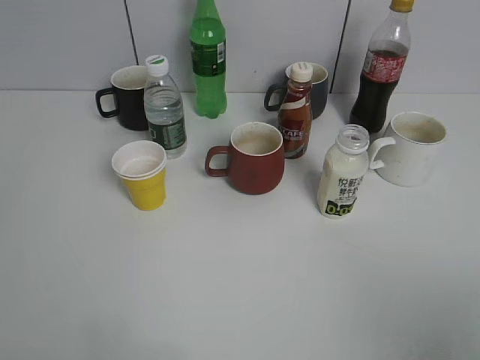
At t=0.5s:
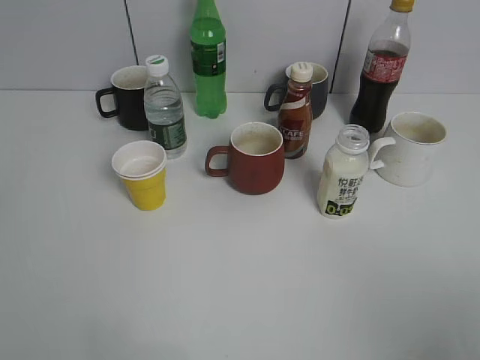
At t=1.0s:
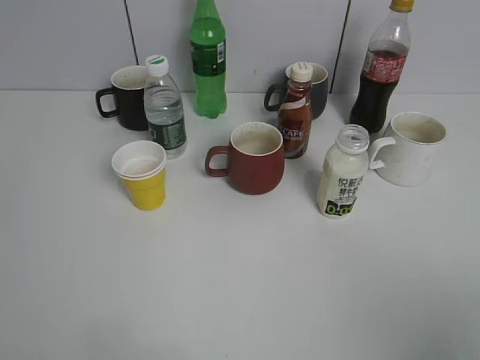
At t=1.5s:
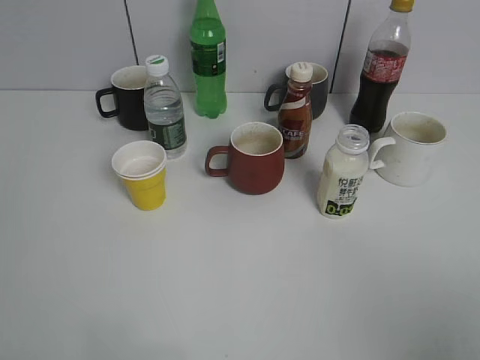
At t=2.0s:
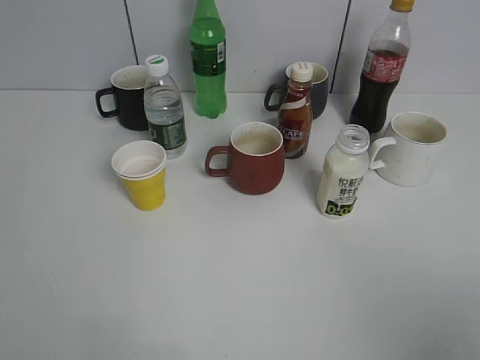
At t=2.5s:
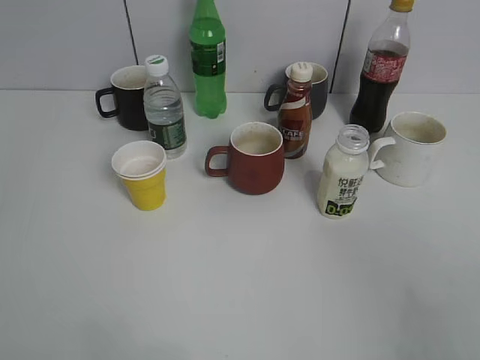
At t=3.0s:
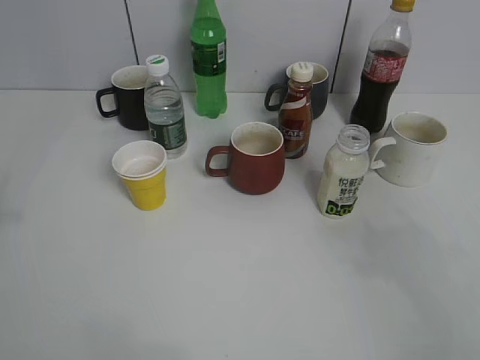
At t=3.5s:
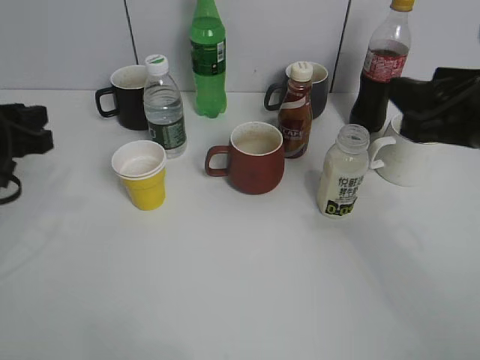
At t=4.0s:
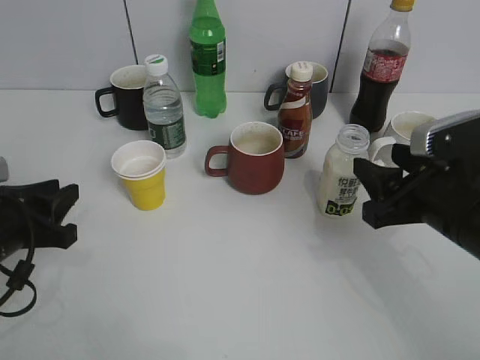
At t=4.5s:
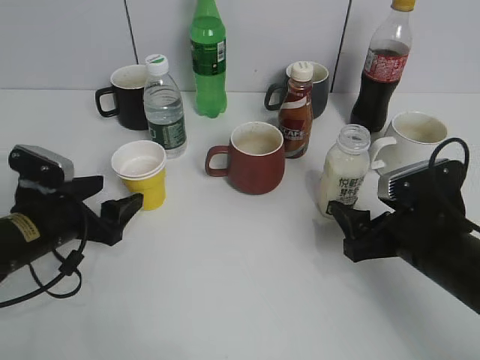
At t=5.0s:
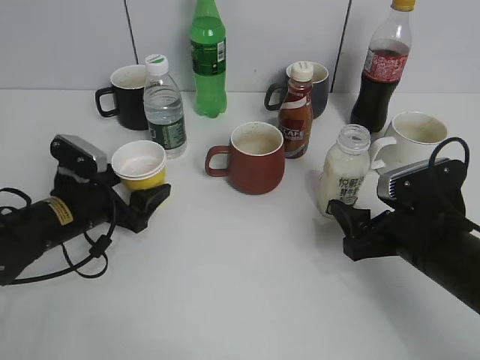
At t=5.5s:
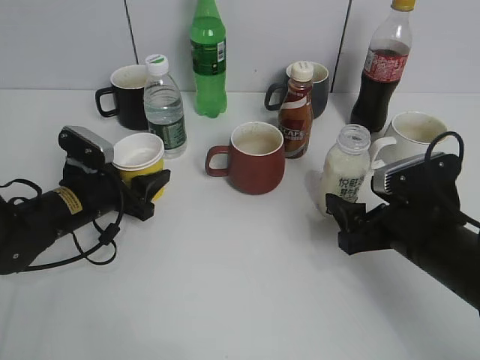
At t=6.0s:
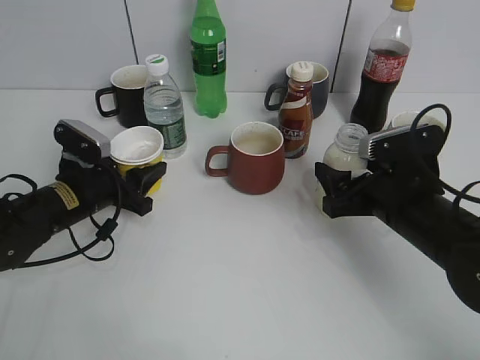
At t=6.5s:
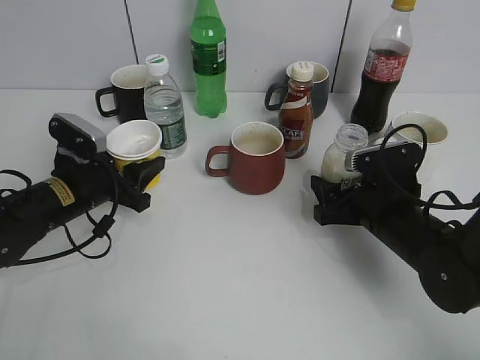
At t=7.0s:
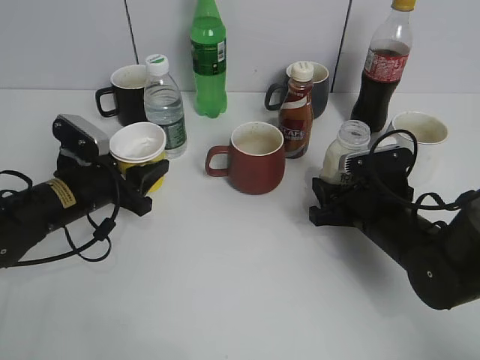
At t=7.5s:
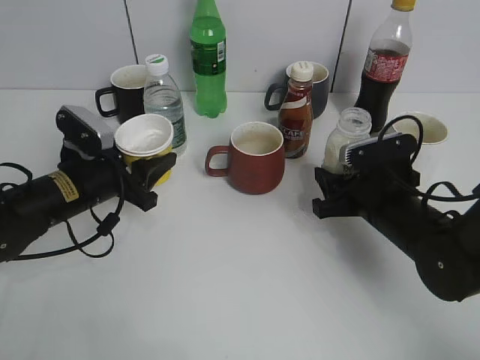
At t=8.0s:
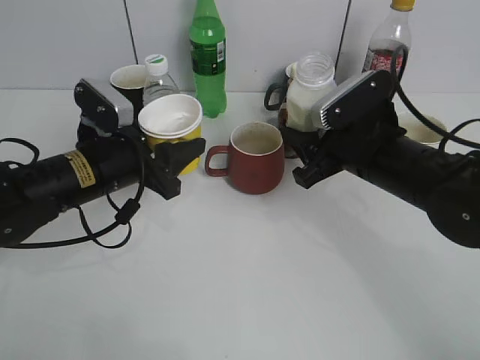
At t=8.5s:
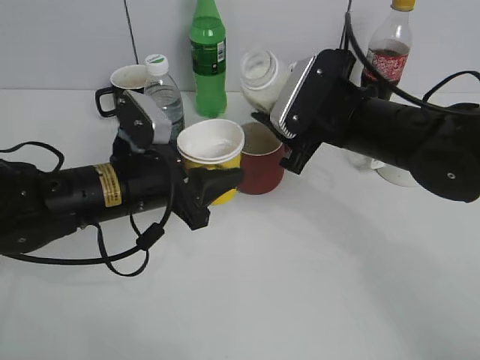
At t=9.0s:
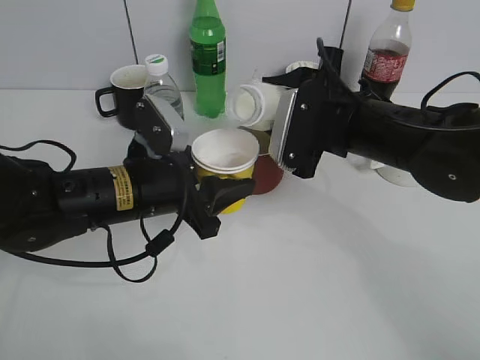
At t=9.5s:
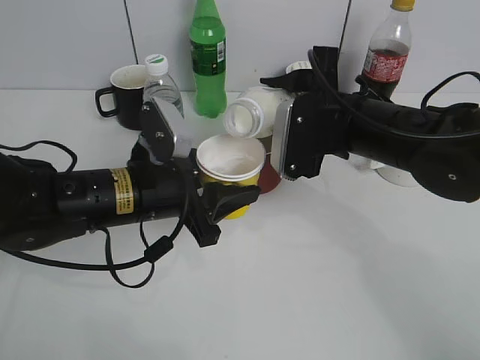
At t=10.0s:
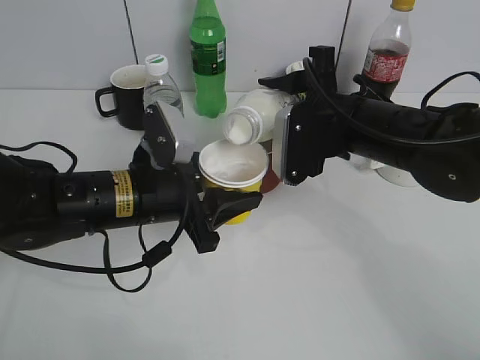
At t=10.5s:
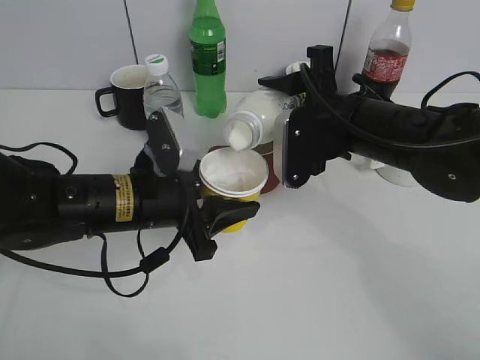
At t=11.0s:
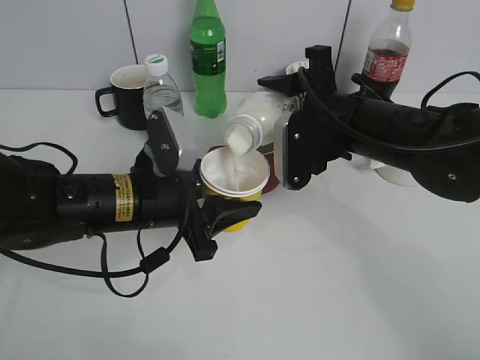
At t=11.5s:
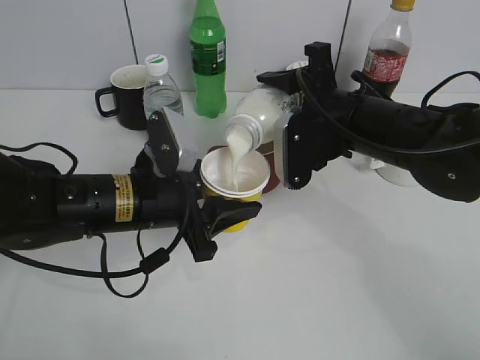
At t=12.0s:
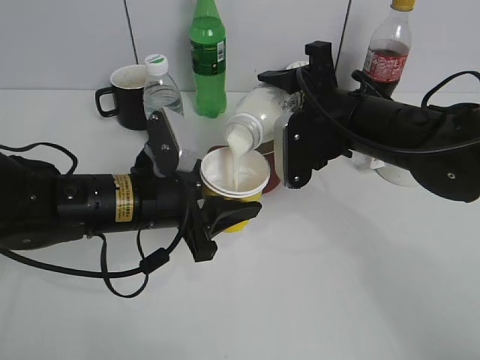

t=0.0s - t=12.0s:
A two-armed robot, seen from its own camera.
Step, t=3.5s - t=5.0s: Grasp the yellow paper cup with left gripper.
Step, t=5.5s - t=6.0s: Lift the yellow paper cup with left gripper.
Step, t=6.5s - t=7.0s: Grasp the bottle with yuexian Milk with right gripper.
t=2.0s - t=4.0s: Both grippers travel together forward and downward, about 25 cm.
t=4.0s - t=6.0s: The left gripper heads forward, downward and to the right, covering about 15 cm, and opens and closes again; the right gripper goes roughly 5 cm downward, and opens its fingers.
t=6.0s - t=8.0s: The left gripper is displaced upward by approximately 5 cm; the right gripper shifts by some 5 cm, and closes.
t=8.0s - t=10.0s: The left gripper is displaced to the right by approximately 5 cm.
t=10.0s - t=12.0s: The grippers move only a little.

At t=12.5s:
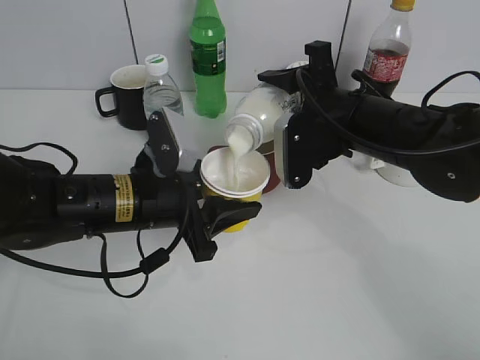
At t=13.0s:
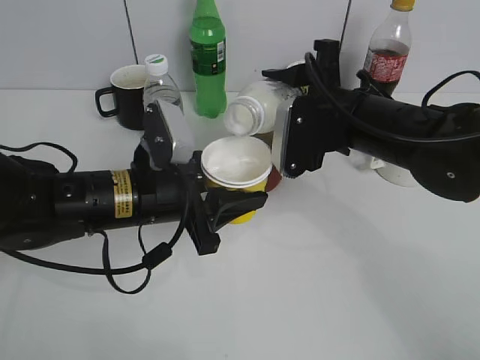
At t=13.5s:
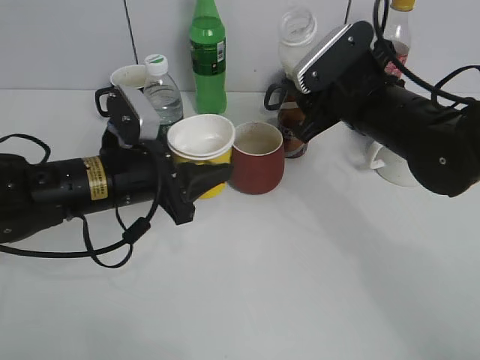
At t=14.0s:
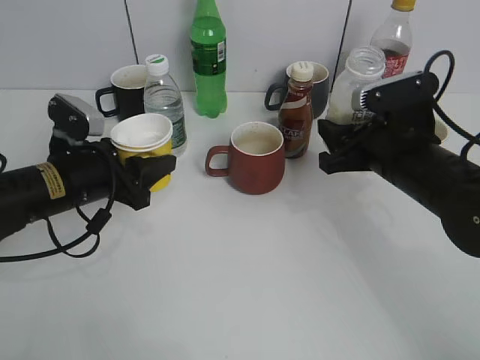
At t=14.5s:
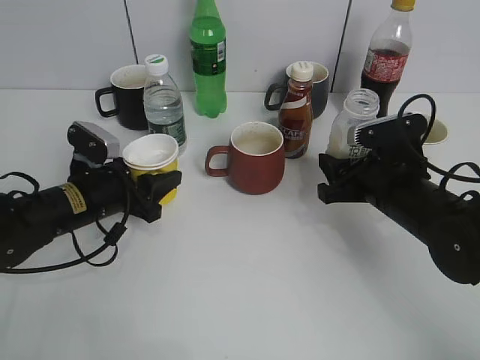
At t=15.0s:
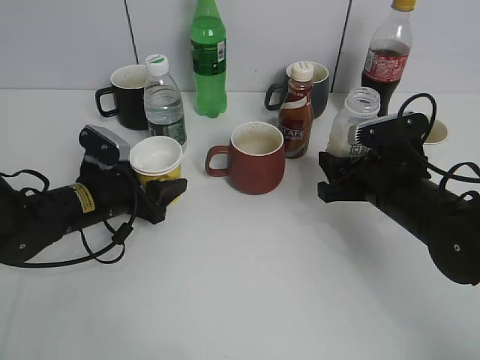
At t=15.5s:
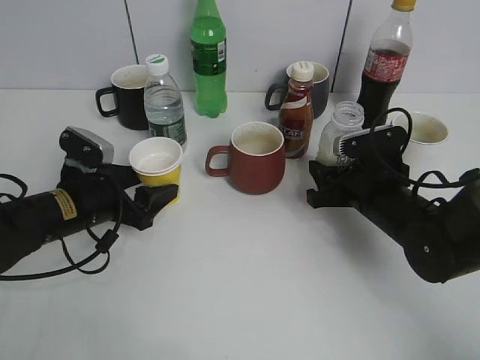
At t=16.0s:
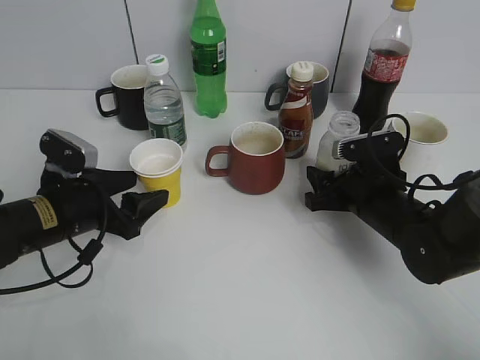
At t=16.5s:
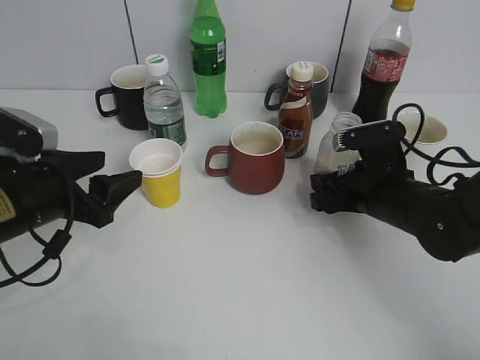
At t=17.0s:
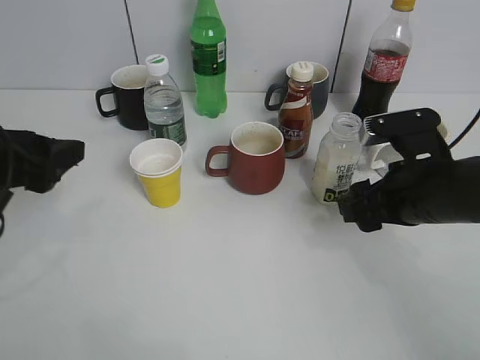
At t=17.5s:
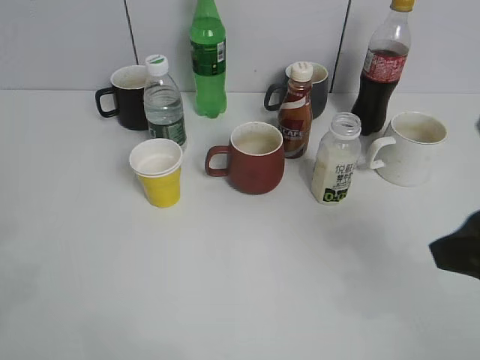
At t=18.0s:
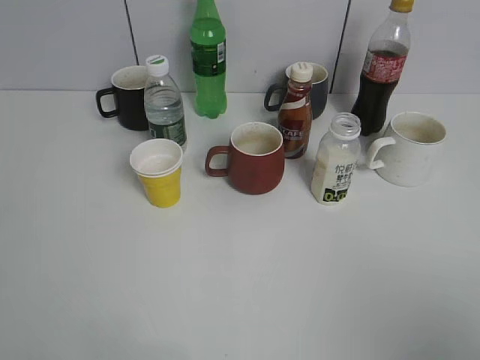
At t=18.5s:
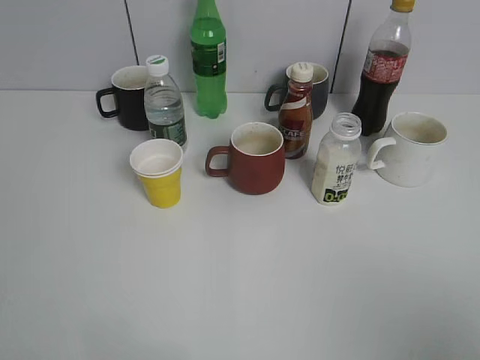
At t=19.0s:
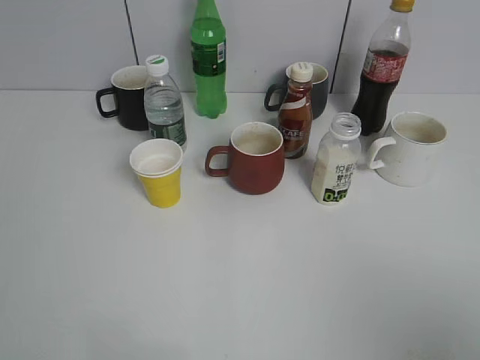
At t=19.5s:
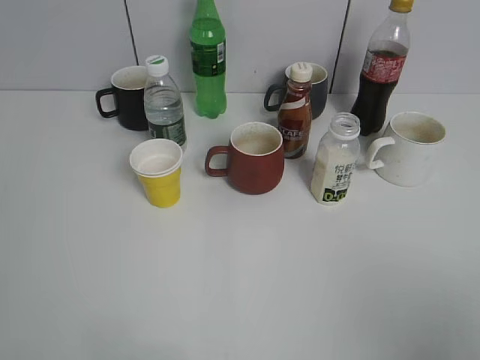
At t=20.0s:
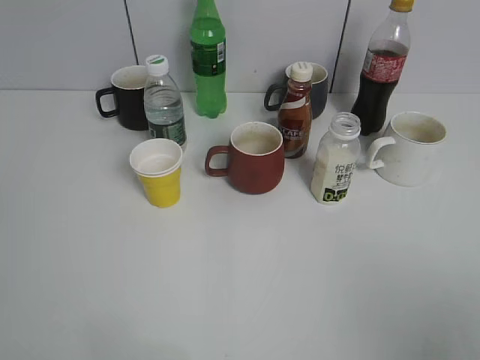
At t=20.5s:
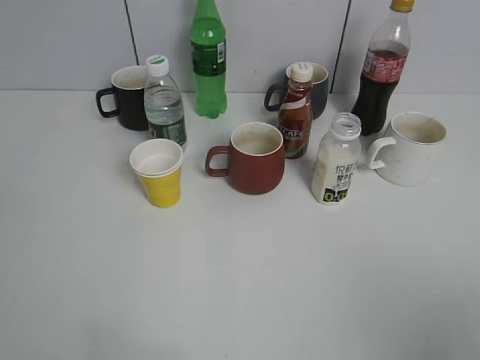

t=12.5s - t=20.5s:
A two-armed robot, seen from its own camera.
Step, t=13.5s - t=16.5s: Place the yuexian Milk bottle on the table with right gripper.
t=12.5s - t=14.5s: The right gripper is displaced downward and to the right by about 10 cm, while the left gripper heads to the left, downward and forward, covering roughly 10 cm.
t=14.5s - t=16.5s: The right gripper opens up. The left gripper goes about 10 cm backward and upward, and opens.
t=16.5s - t=18.5s: The left gripper heads backward, upward and to the left, covering some 30 cm; the right gripper travels backward and upward by roughly 35 cm.

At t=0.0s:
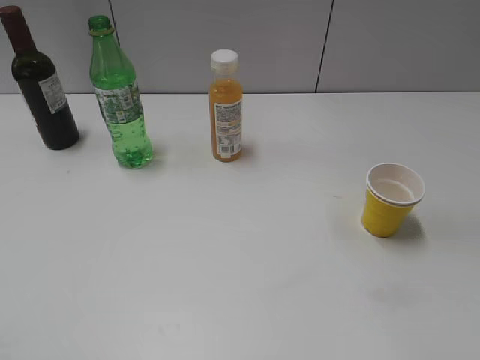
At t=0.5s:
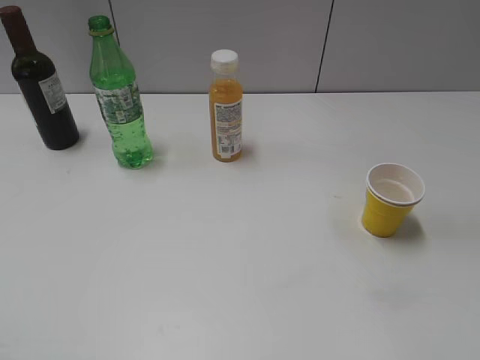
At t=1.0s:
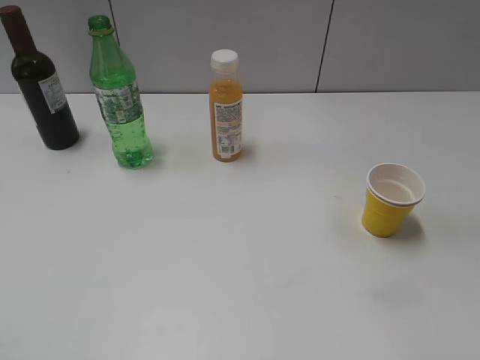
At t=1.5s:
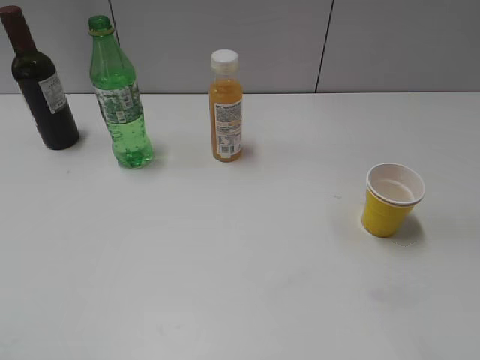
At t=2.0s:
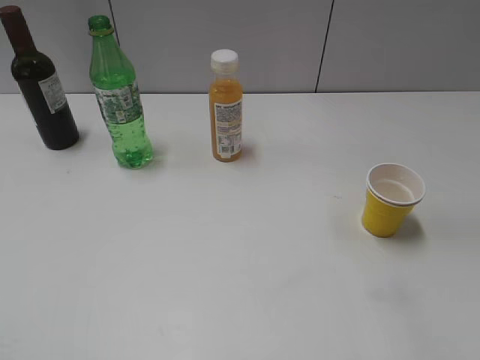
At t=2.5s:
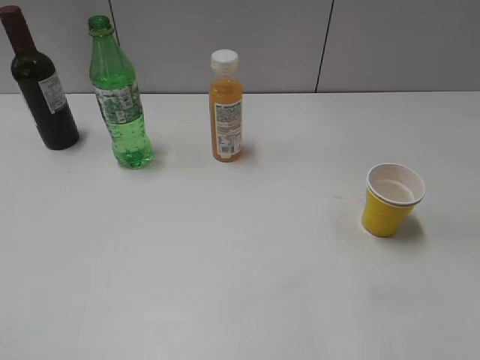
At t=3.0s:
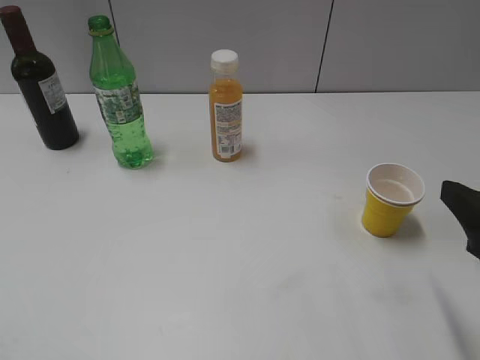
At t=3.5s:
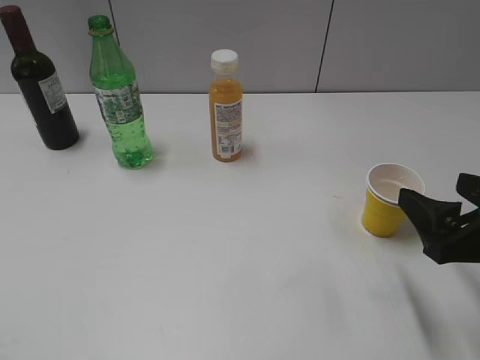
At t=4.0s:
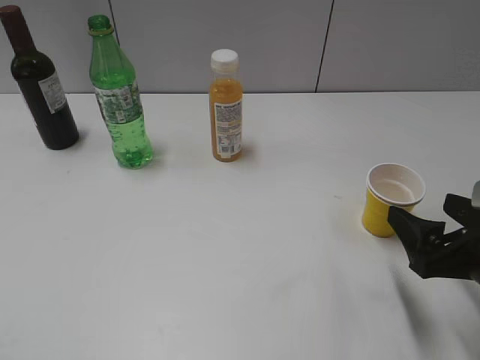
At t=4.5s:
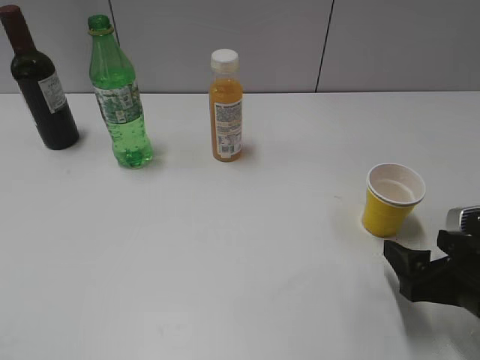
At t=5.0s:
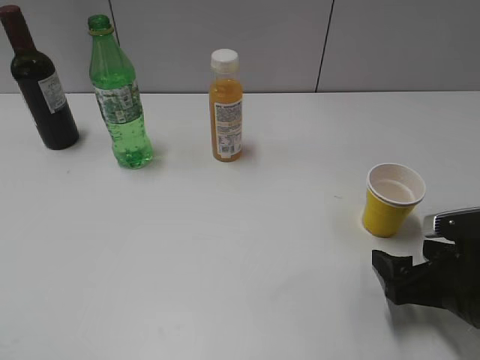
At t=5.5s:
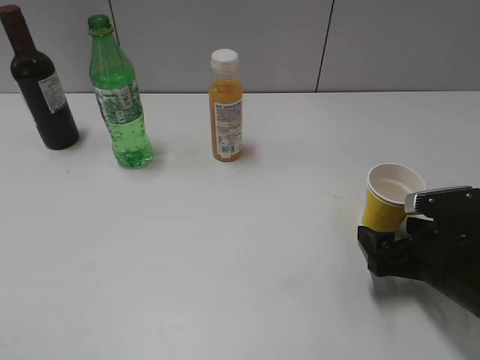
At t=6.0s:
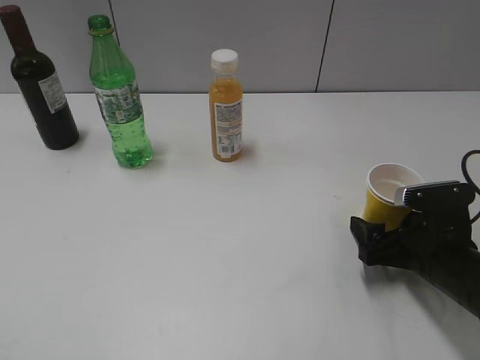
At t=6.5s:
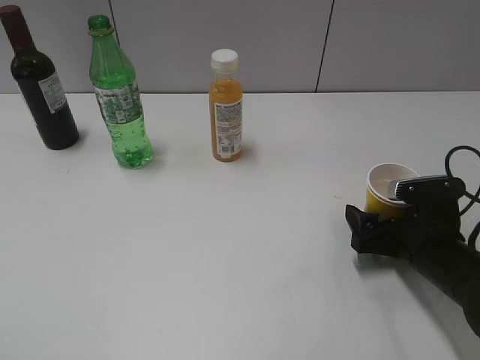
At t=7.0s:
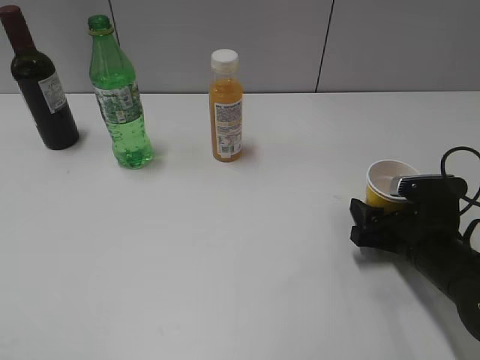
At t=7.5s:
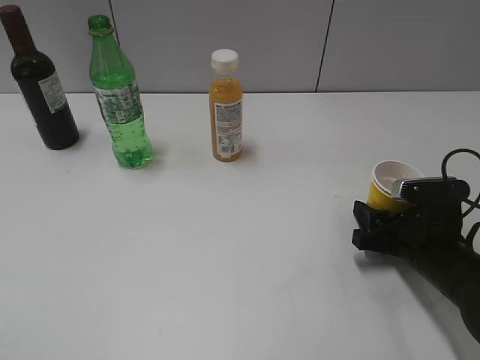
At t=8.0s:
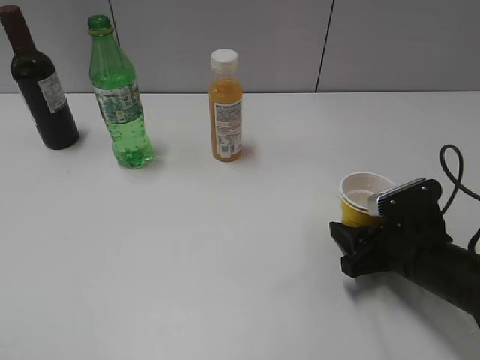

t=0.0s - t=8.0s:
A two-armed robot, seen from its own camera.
Step, t=1.5s - t=7.0s: Grasp the yellow paper cup with right gripper.
t=2.0s - t=4.0s: The right gripper goes roughly 20 cm downward and forward.
t=4.0s - t=6.0s: The right gripper is displaced downward and forward by about 10 cm.
t=6.0s - t=8.0s: The right gripper closes up.
